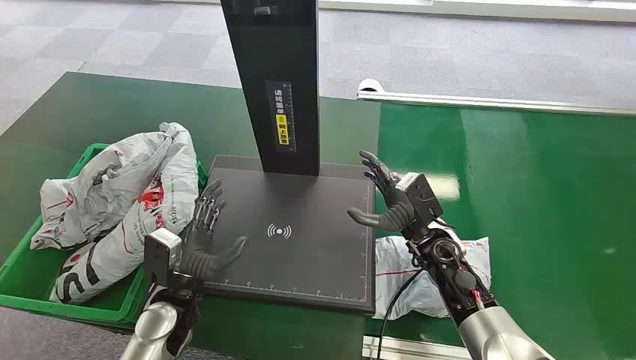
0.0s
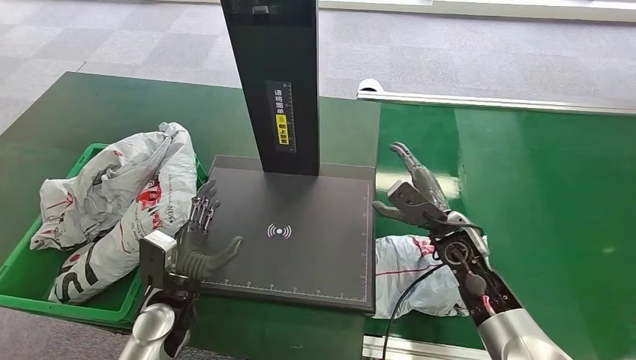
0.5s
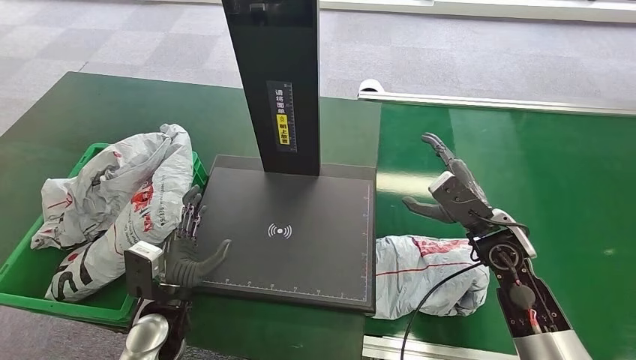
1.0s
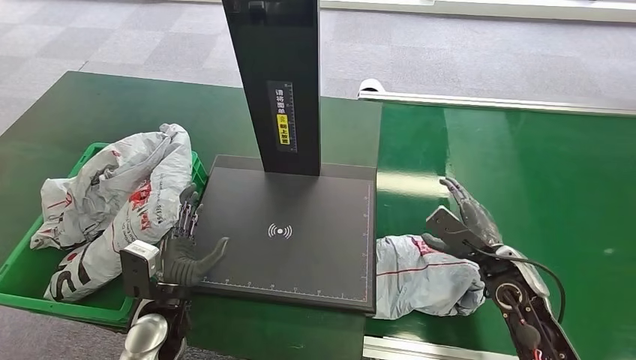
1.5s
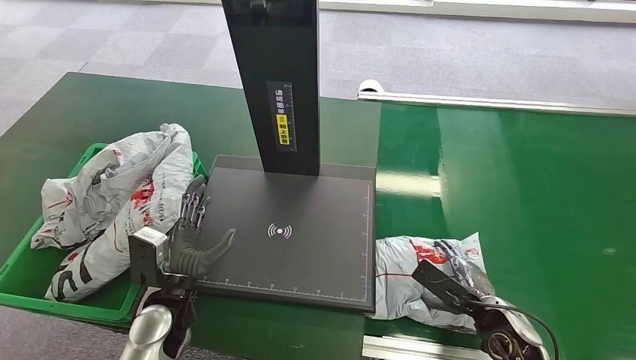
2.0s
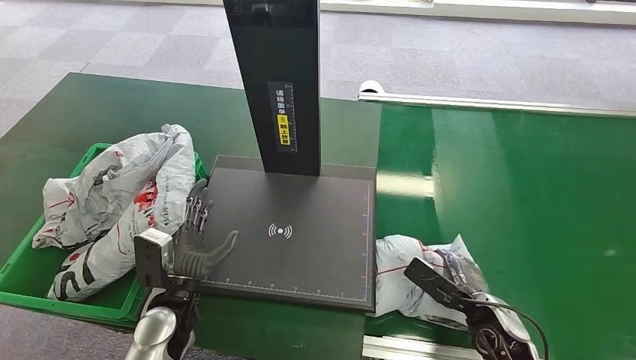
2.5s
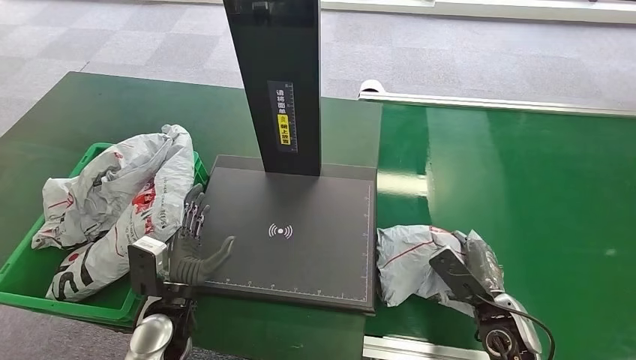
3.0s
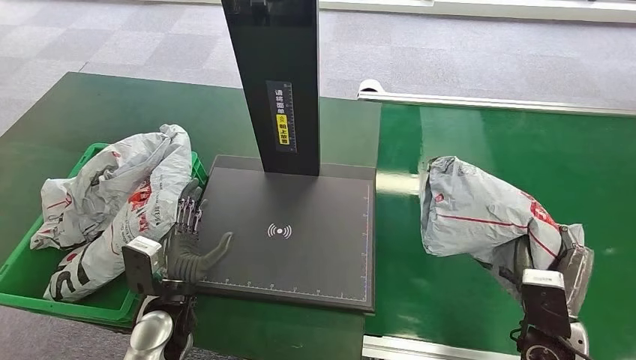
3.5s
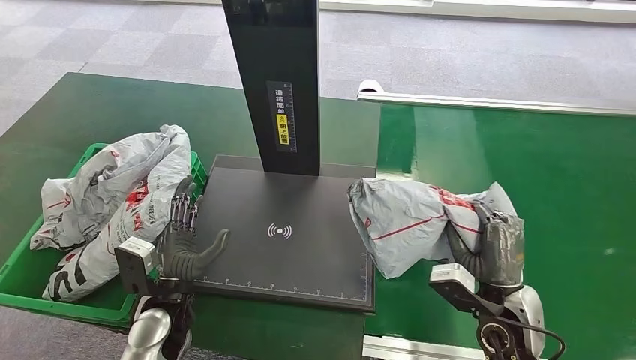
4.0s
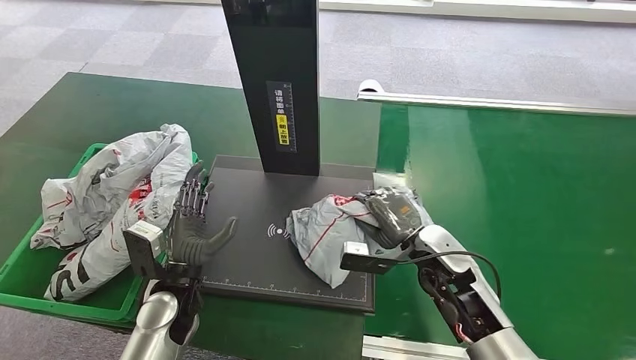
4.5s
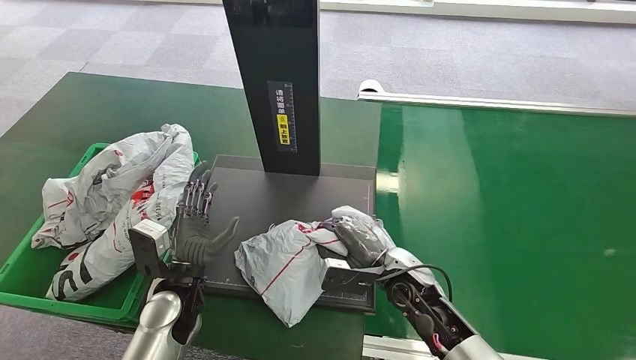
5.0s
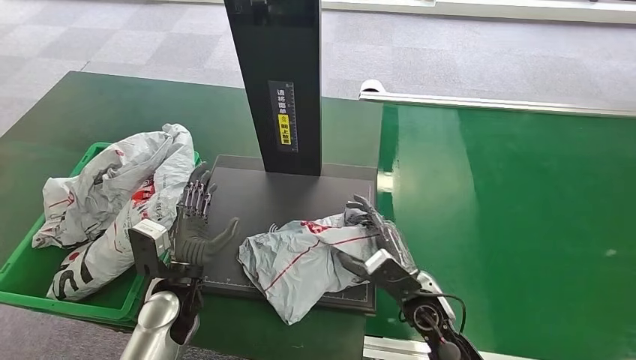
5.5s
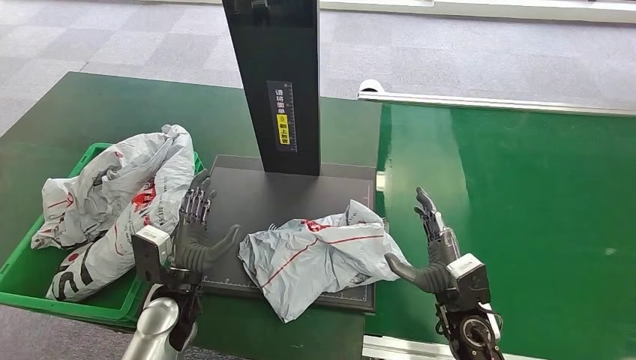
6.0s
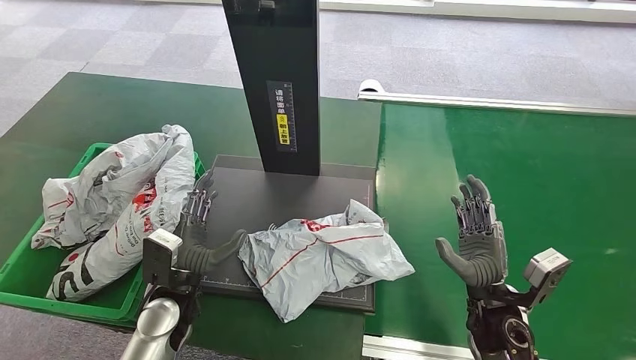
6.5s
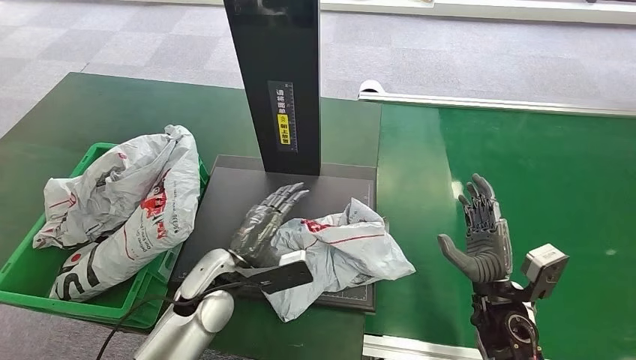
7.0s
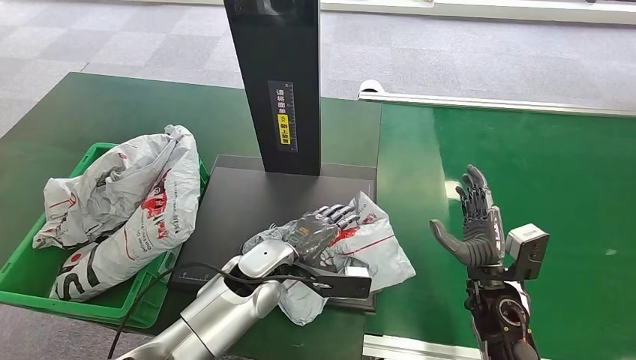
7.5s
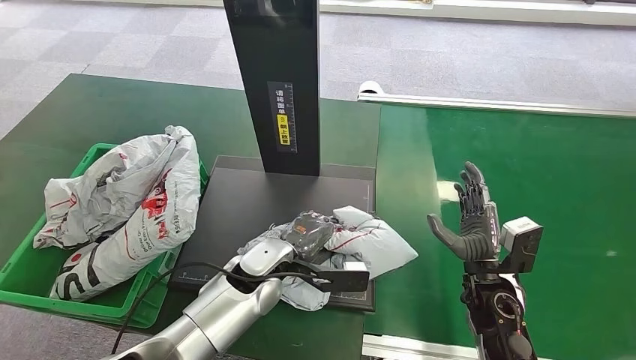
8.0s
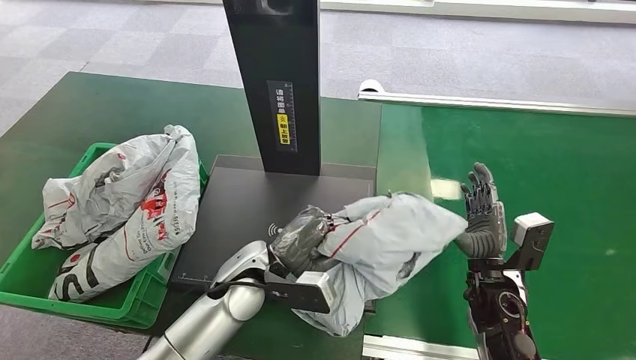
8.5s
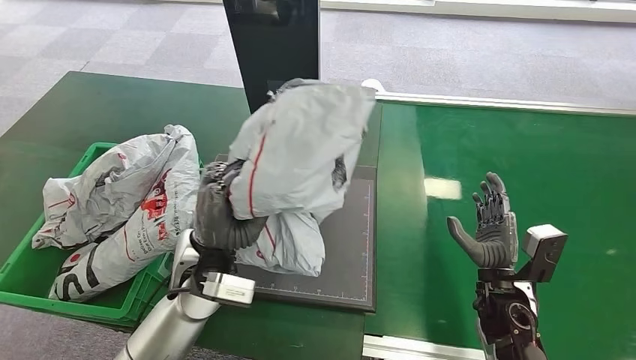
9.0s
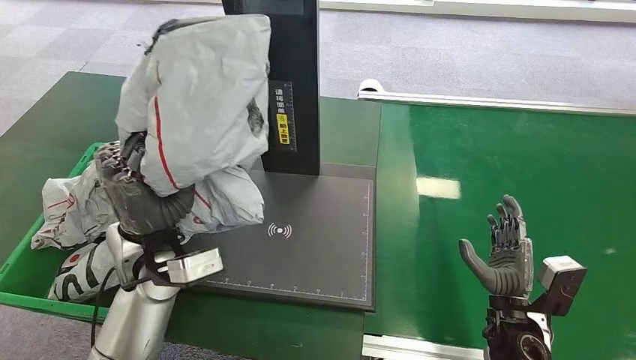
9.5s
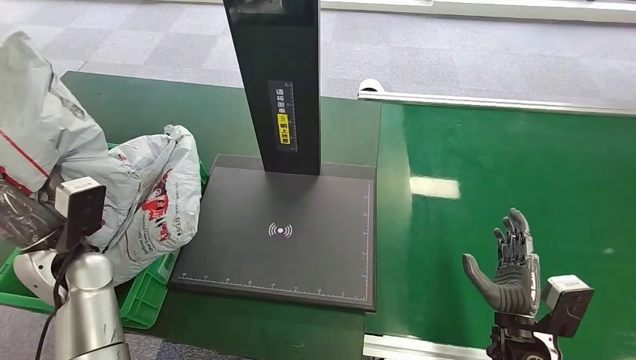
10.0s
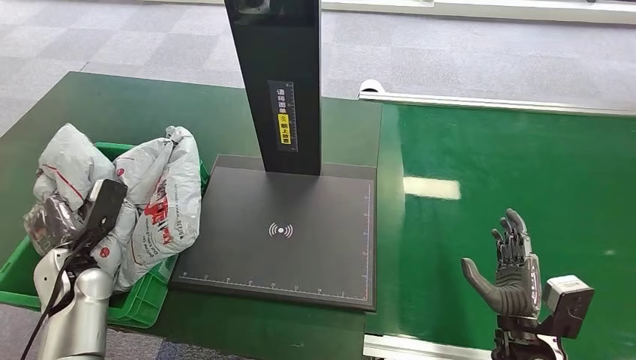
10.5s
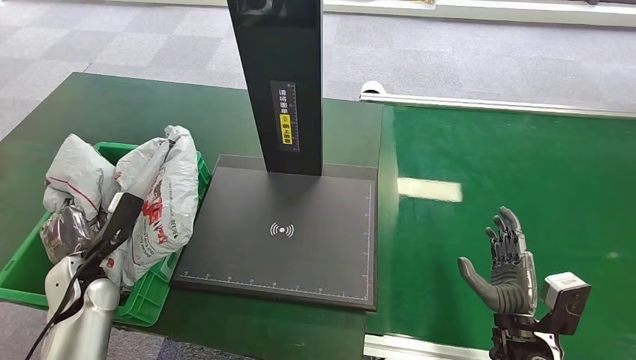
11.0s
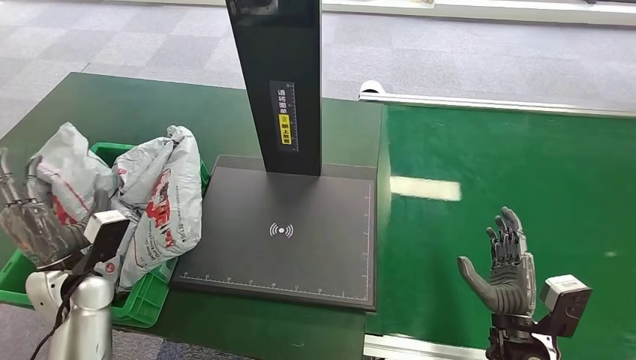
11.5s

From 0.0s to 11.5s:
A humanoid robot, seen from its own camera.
Step, from 0.0s to 3.5s: Pick up the package from the conveyor belt.
Step, from 4.0s to 6.0s: Place the package onto the inbound machine.
Step, from 6.5s to 9.0s: Pick up the package from the inbound machine.
Step, from 9.5s to 11.5s: Place the package into the parcel locker.
From 2.0s to 4.0s: The right hand moves upward, roughly 10 cm.
From 4.0s to 6.0s: The right hand heads downward, covering approximately 5 cm, and reaches approximately 10 cm to the left, then returns.
